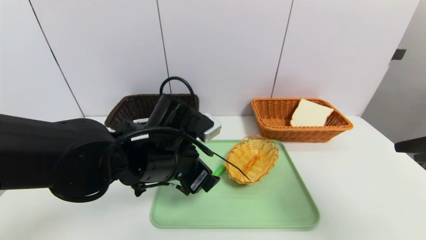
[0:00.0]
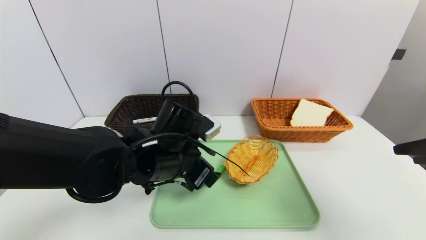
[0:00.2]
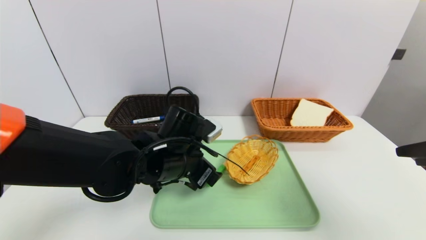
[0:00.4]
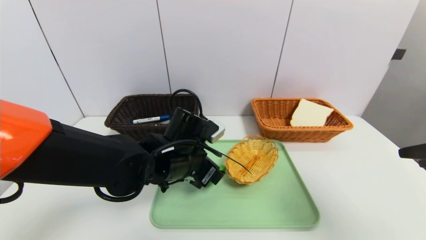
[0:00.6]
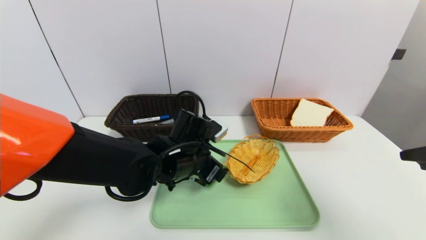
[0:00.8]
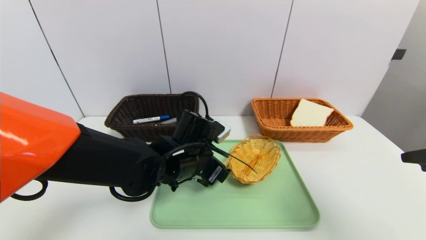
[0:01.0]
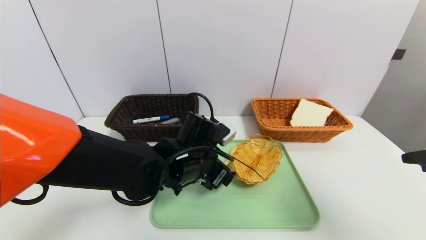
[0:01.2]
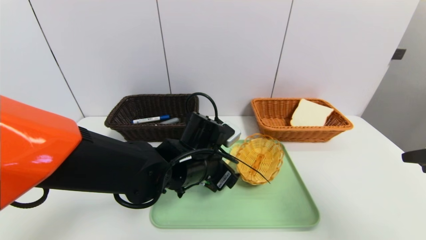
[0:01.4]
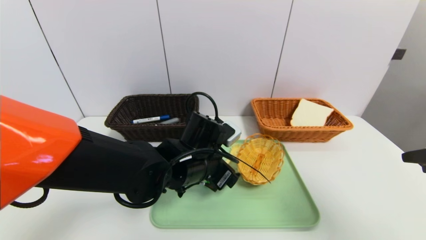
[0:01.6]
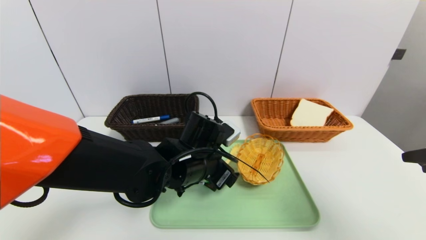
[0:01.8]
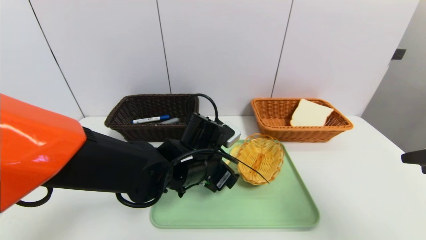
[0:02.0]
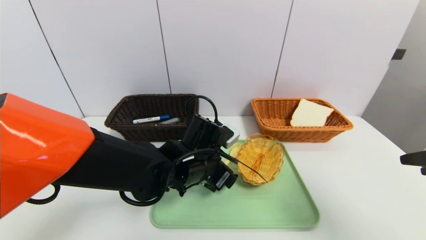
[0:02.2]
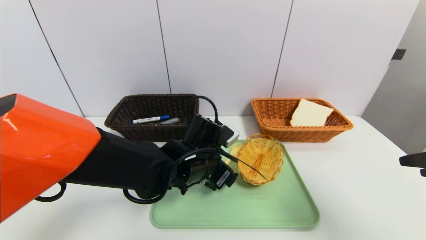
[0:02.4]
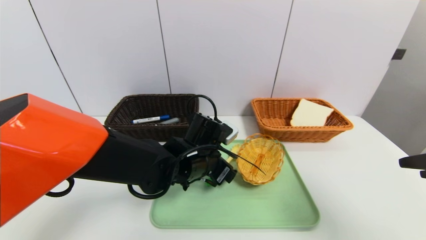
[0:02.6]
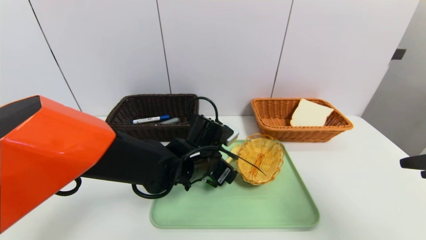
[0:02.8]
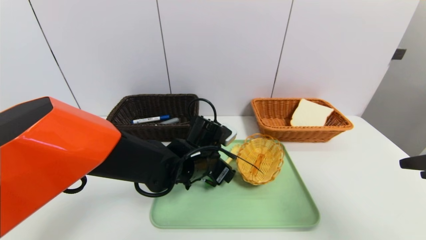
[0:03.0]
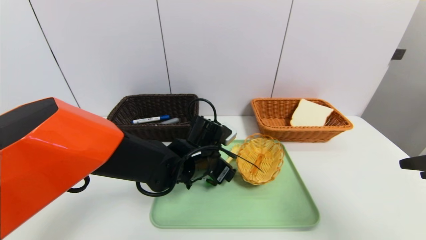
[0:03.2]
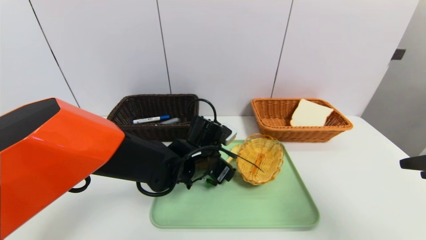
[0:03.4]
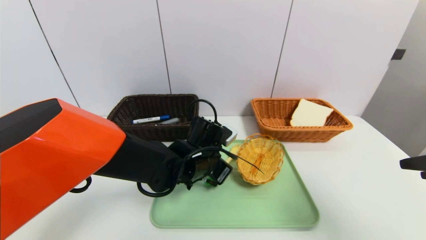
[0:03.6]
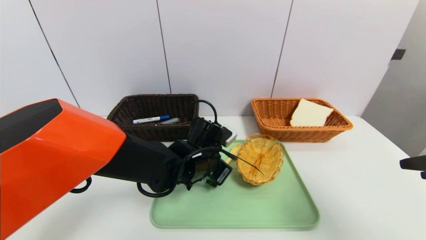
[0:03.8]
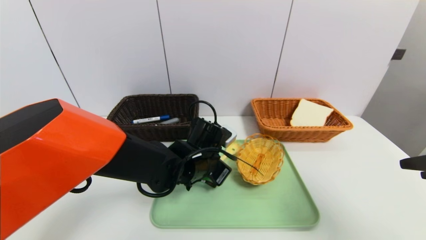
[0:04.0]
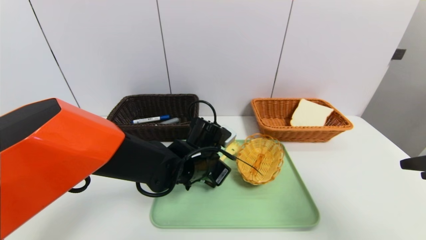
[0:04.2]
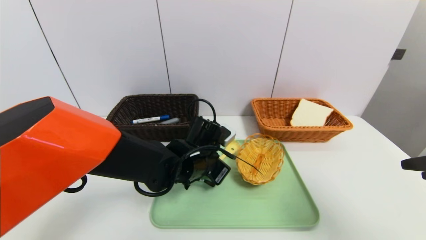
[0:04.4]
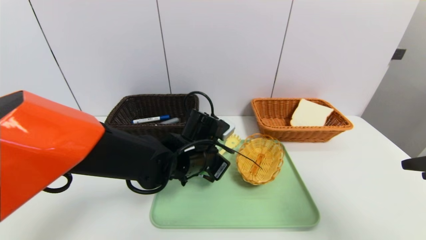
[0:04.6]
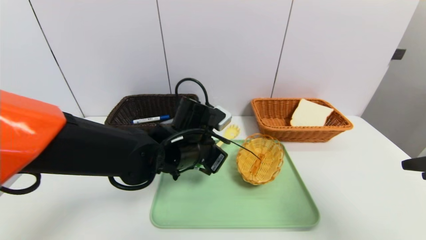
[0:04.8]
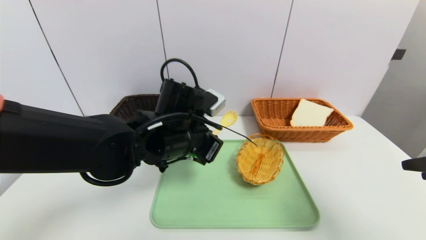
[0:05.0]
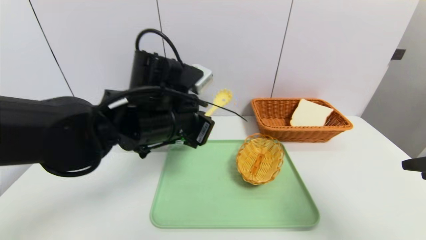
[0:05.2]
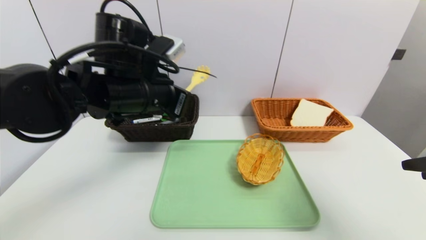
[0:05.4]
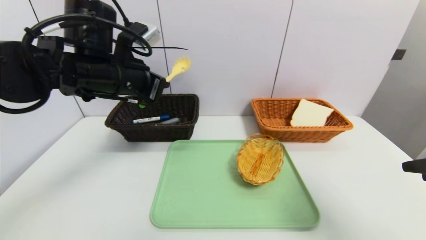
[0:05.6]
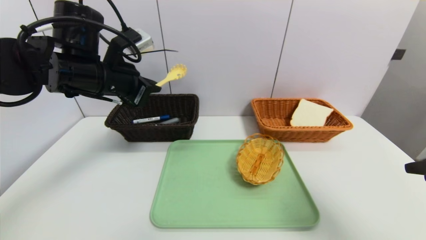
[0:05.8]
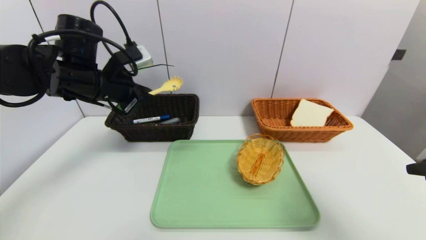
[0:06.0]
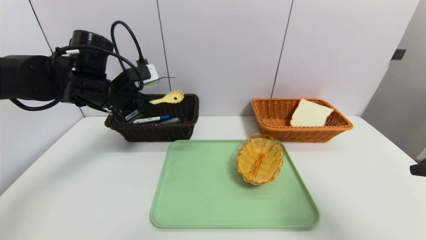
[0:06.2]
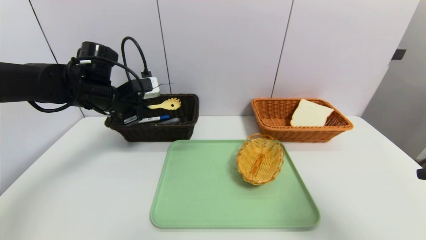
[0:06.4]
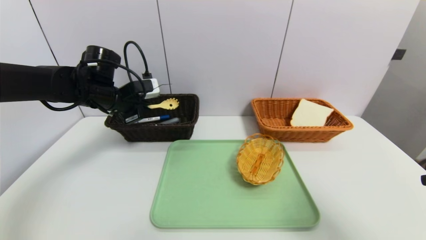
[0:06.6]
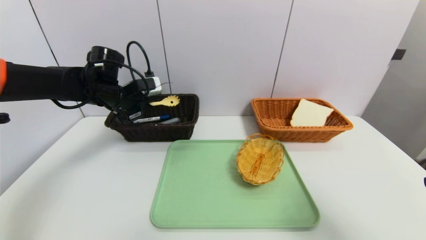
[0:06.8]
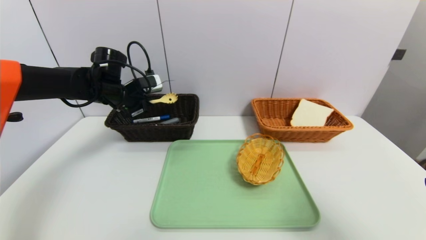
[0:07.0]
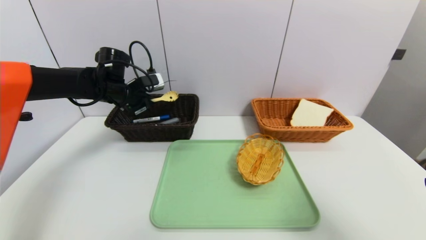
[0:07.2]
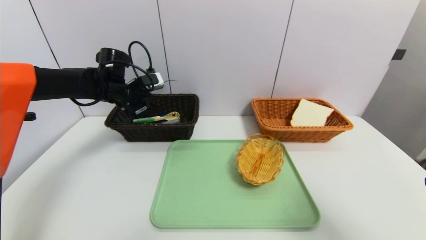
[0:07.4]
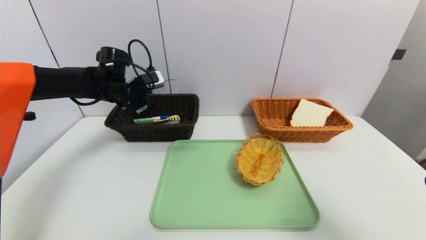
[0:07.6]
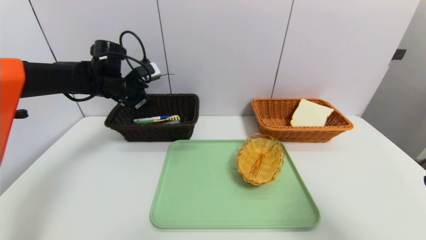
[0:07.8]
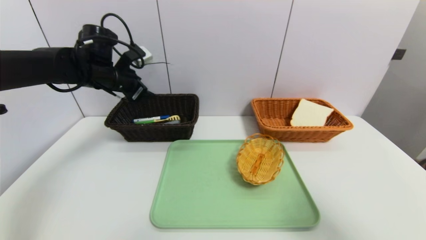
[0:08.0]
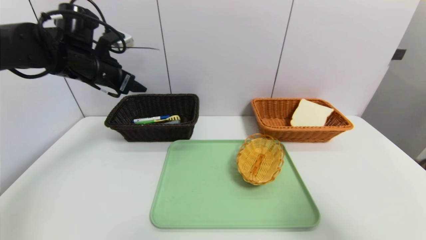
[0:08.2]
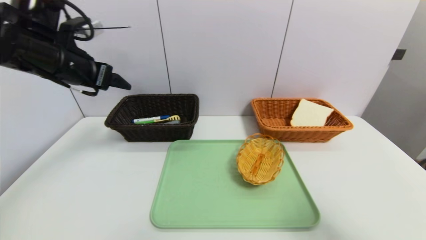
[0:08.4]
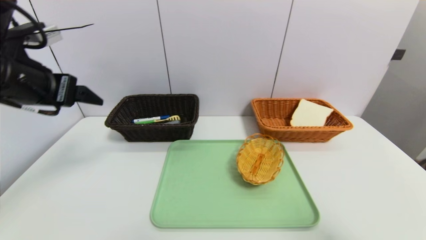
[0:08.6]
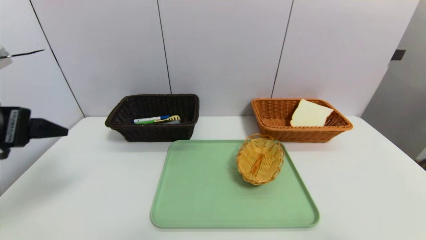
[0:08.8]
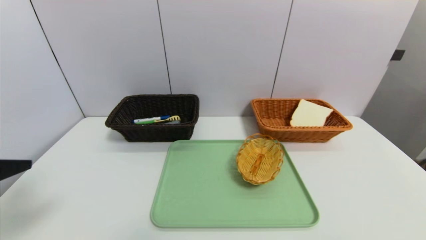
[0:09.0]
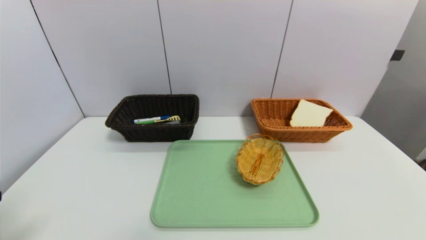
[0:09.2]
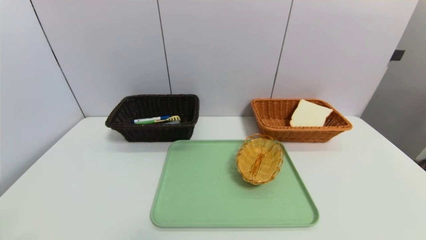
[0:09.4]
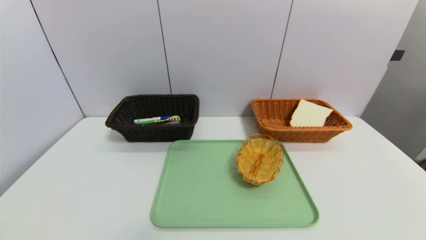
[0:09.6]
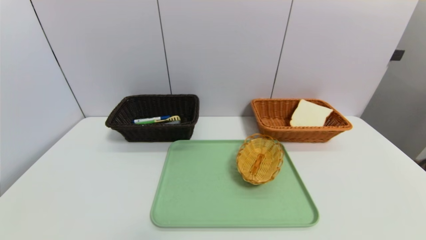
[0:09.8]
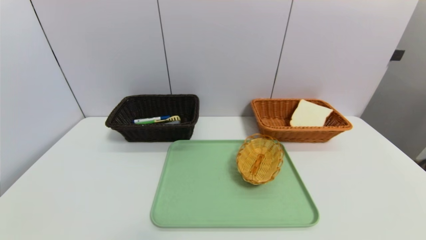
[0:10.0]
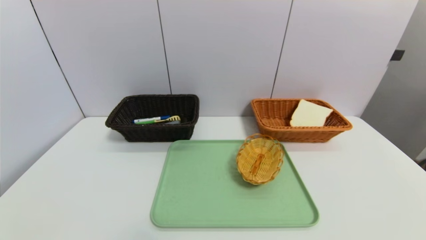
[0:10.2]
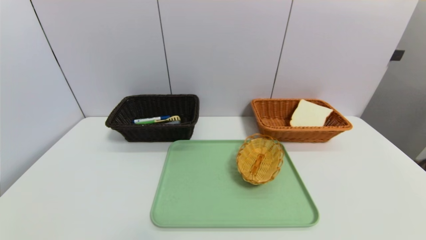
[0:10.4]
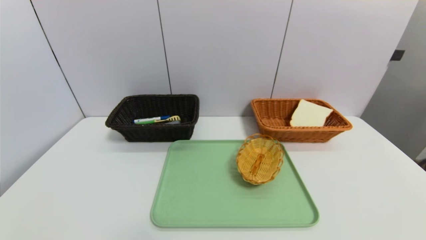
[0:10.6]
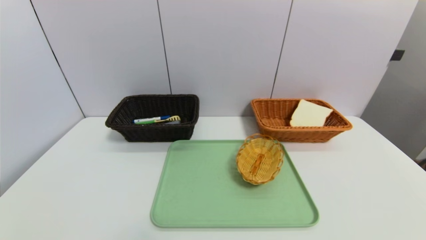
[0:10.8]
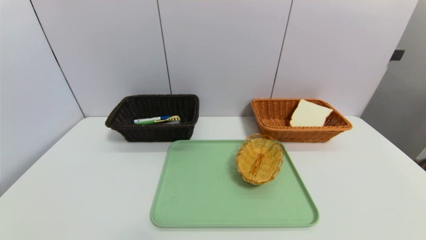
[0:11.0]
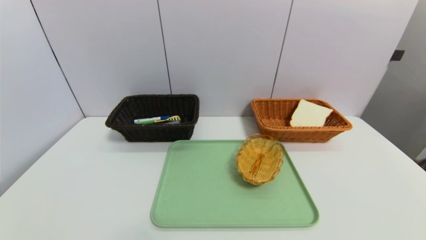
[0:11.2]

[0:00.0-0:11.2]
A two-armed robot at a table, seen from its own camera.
Task of the whole recording: place the food in the right basket with the right gripper, and place the non food items in the left basket with the left gripper.
Step, 0:00.0 to 0:07.6: Grasp the back scratcher and put it in the left basket.
0:00.0 to 0:01.6: The left gripper ends up some 5 cm from where it was.
0:01.6 to 0:03.2: There are only small adjustments of the grippers.
0:03.2 to 0:04.8: The left gripper travels upward by roughly 5 cm, and closes up.
0:04.8 to 0:06.4: The left gripper shifts roughly 20 cm to the left and forward.
0:06.4 to 0:08.0: The left gripper changes place by approximately 5 cm, and opens.
0:08.0 to 0:09.6: The left gripper is displaced backward by roughly 40 cm, while the right gripper moves backward, roughly 15 cm.
